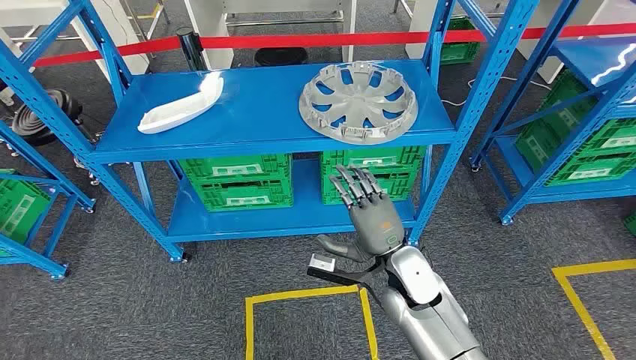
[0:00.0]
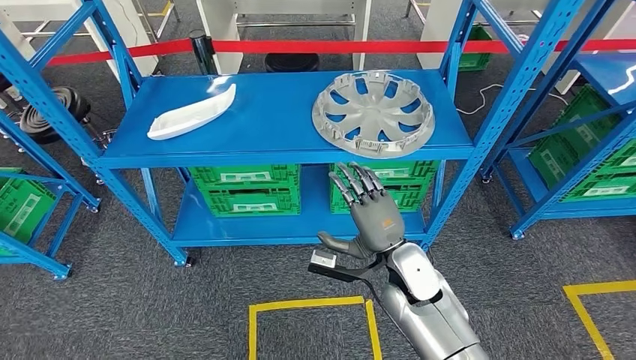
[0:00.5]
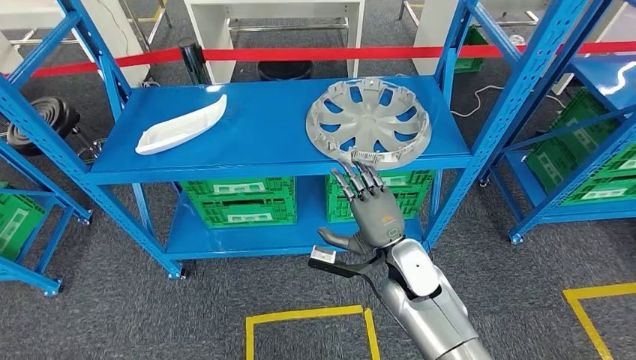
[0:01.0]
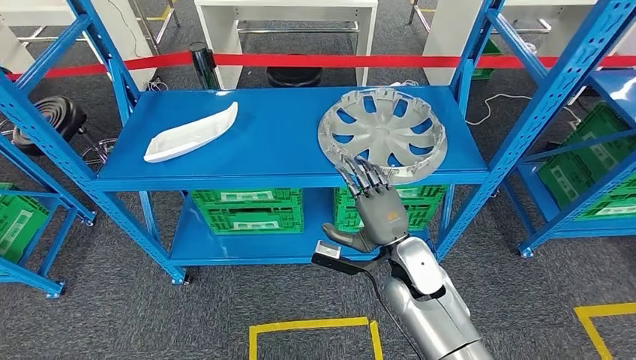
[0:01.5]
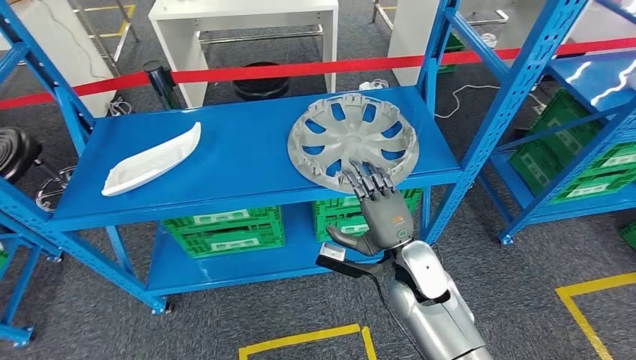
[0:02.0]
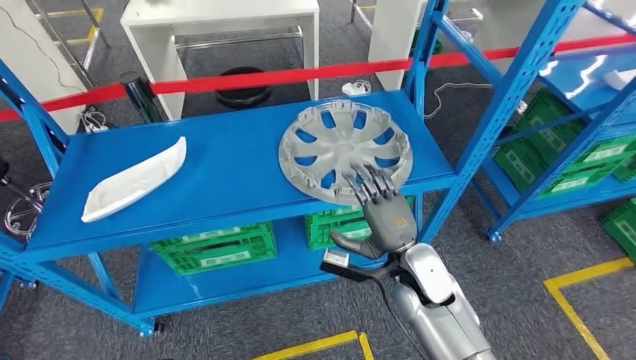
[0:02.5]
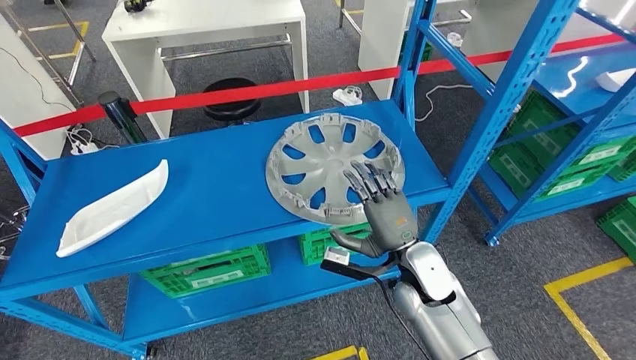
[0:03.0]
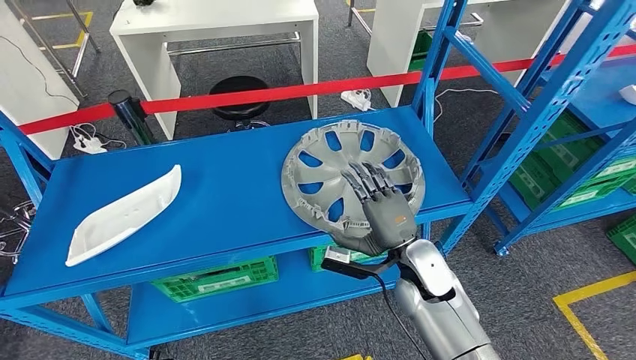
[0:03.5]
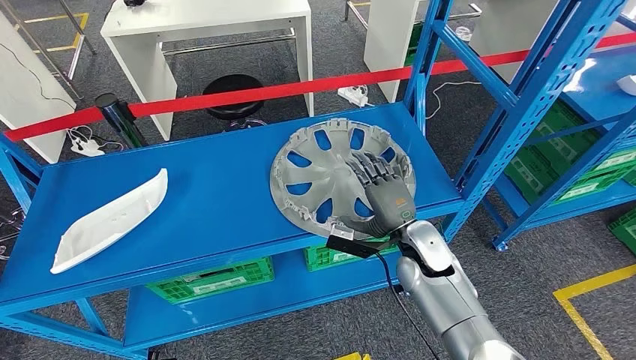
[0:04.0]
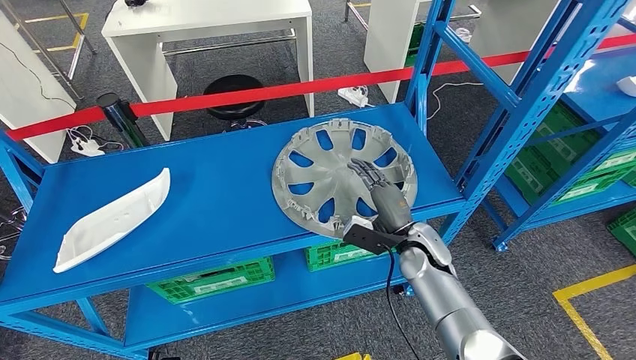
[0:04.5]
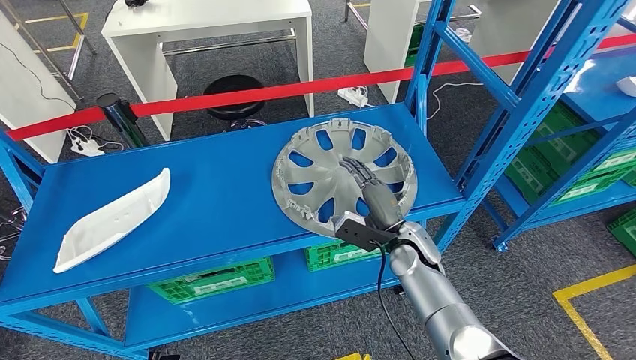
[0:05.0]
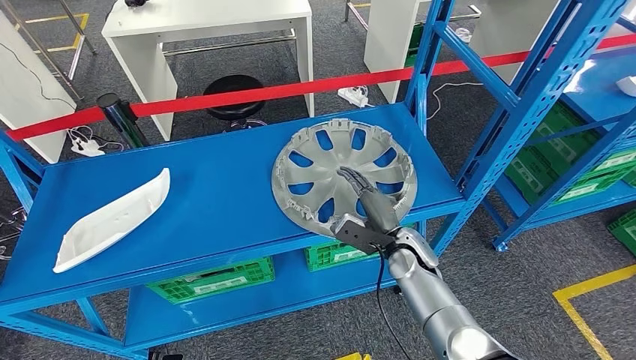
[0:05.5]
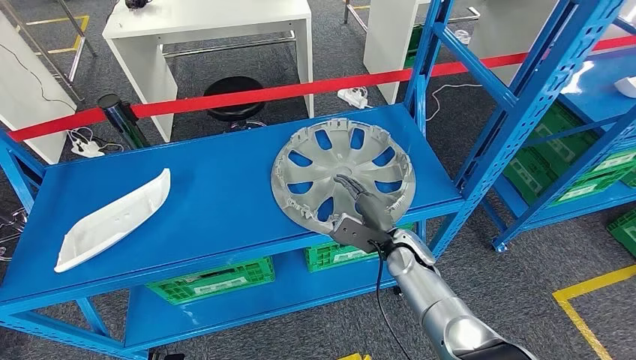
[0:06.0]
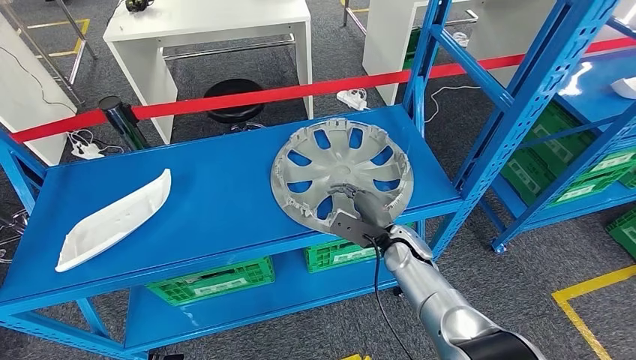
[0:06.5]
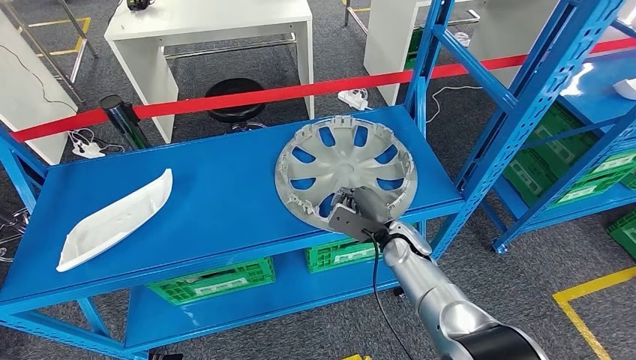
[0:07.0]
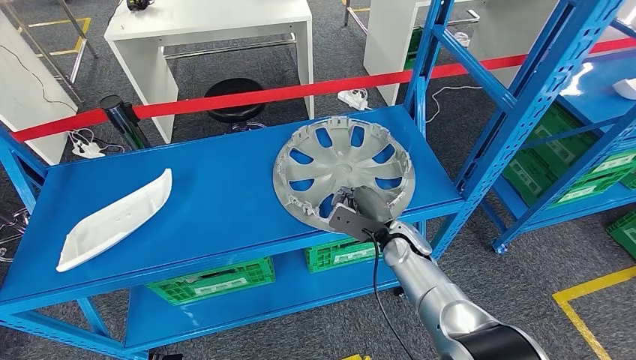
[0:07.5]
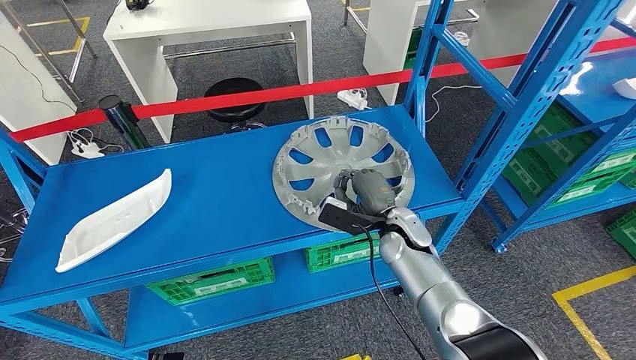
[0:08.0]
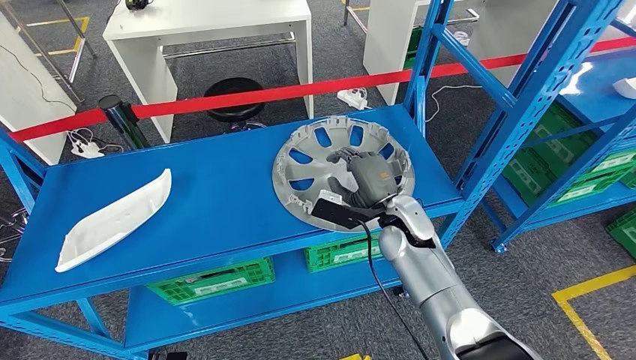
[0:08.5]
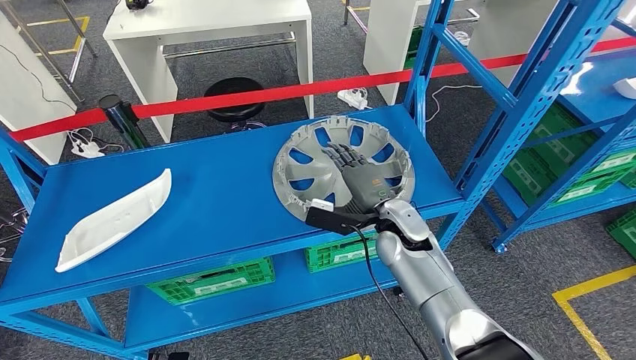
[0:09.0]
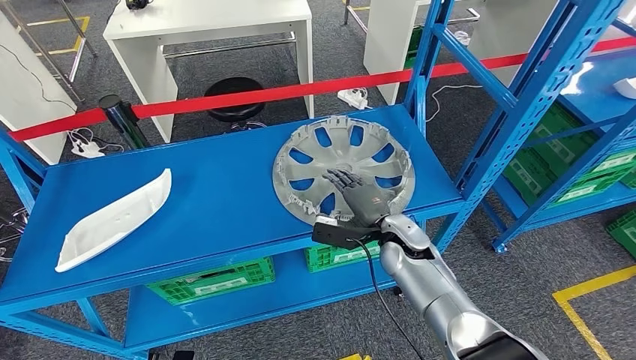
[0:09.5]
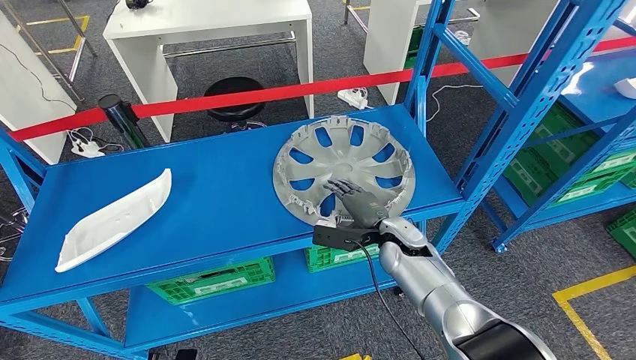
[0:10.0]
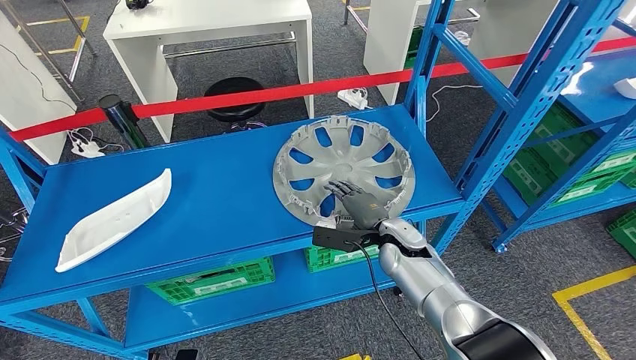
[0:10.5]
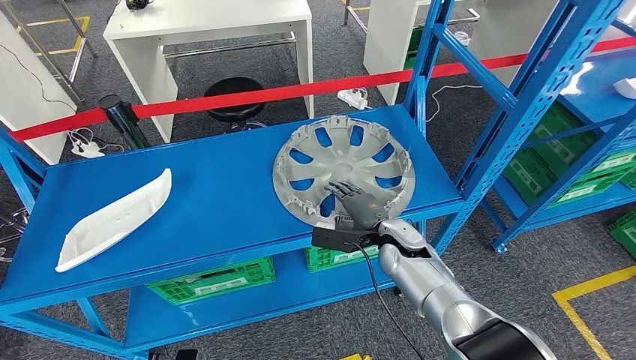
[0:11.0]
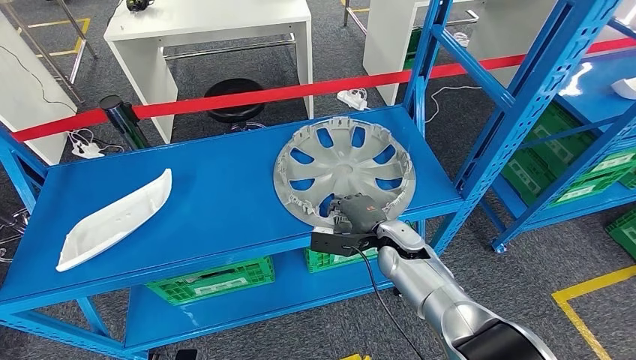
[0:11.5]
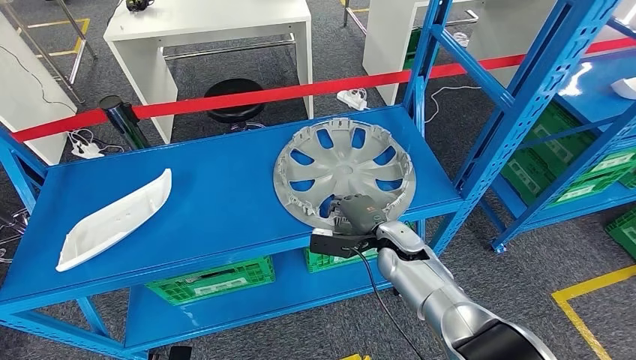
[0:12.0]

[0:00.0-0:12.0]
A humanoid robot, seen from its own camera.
6.0 to 8.0 s: The hands move only a little.
8.0 to 10.0 s: There are only small adjustments of the hands.
10.0 to 12.0 s: The hands stay close to where they were, moving slightly.

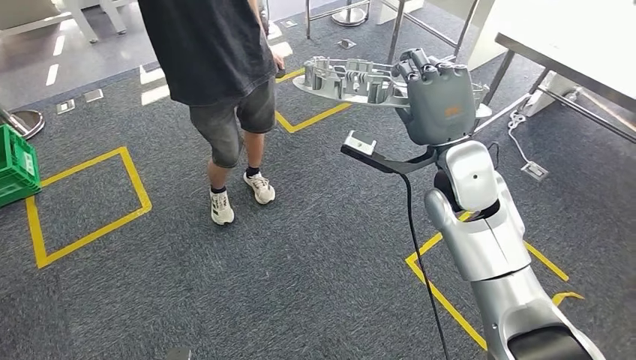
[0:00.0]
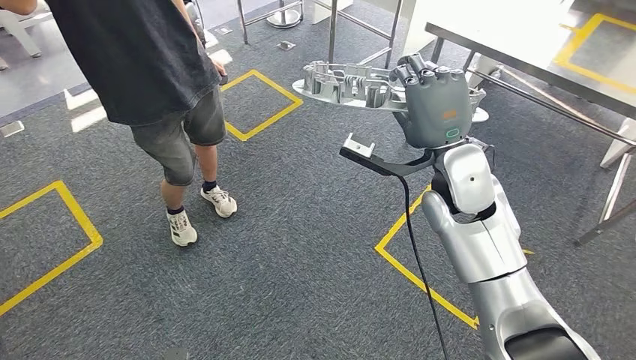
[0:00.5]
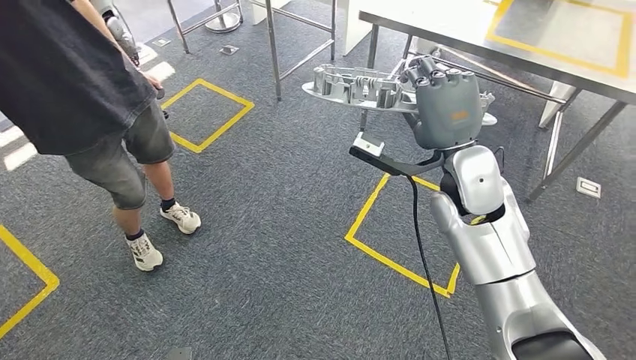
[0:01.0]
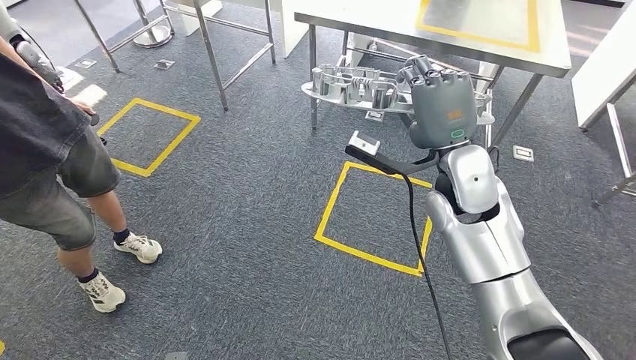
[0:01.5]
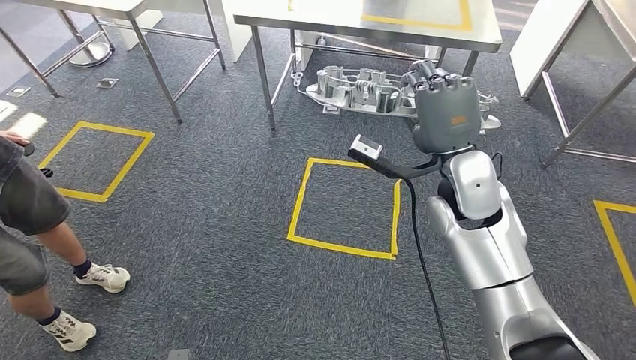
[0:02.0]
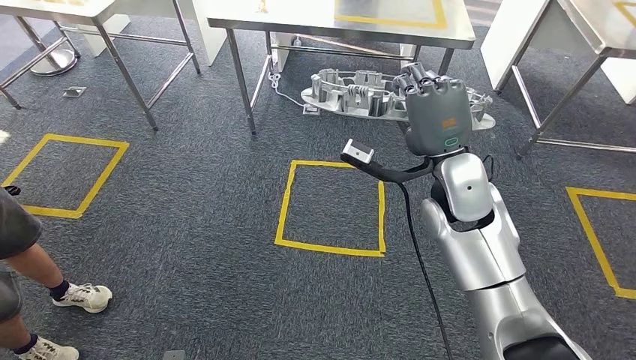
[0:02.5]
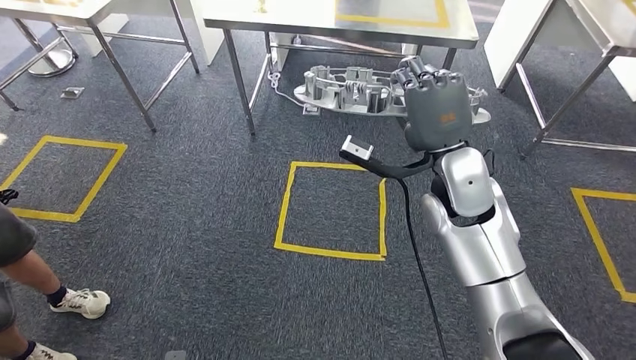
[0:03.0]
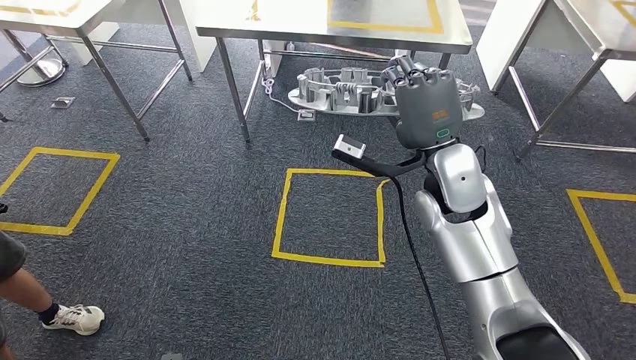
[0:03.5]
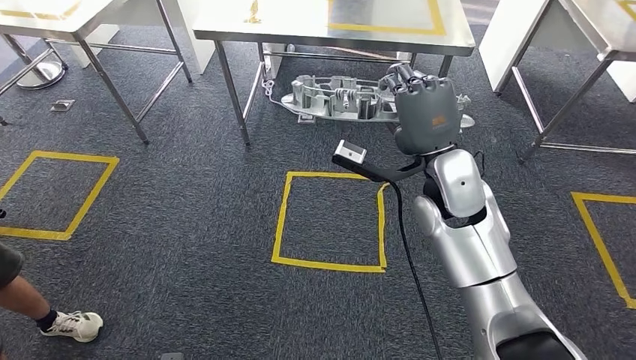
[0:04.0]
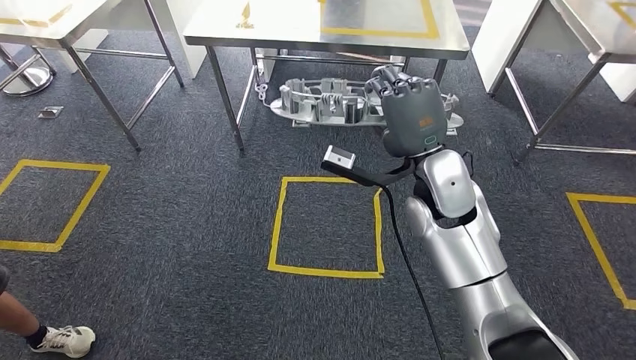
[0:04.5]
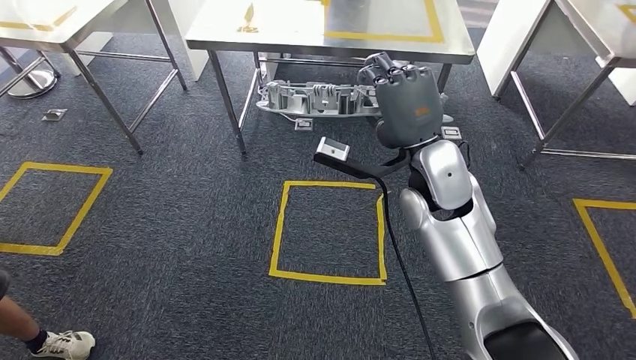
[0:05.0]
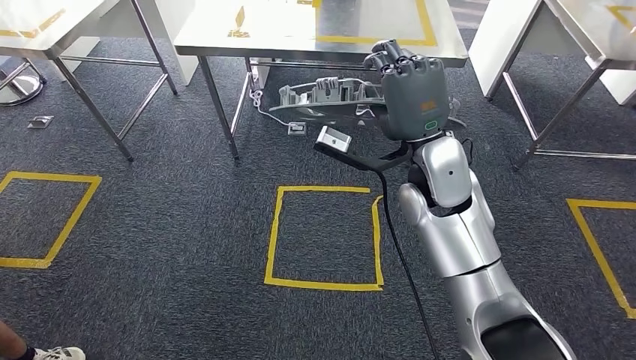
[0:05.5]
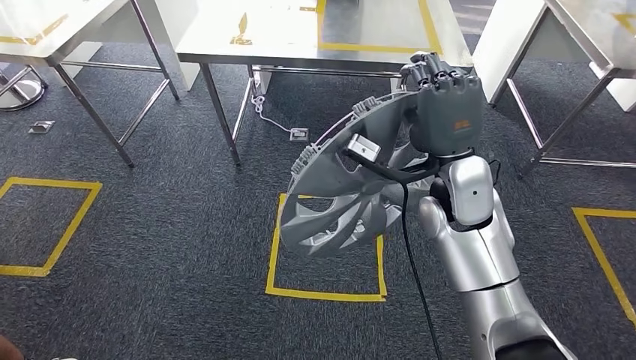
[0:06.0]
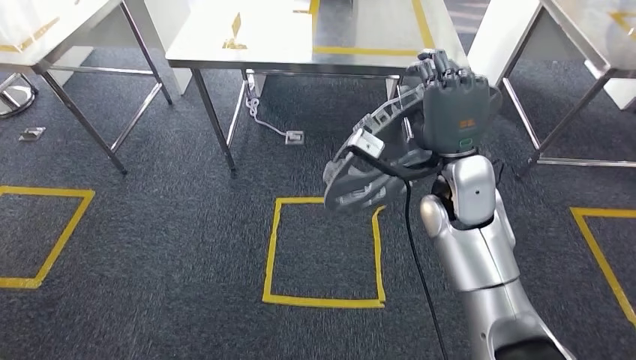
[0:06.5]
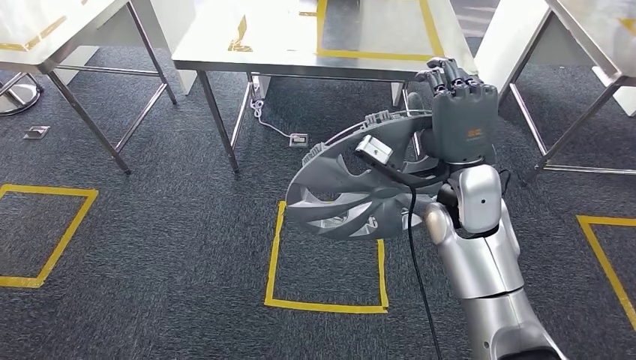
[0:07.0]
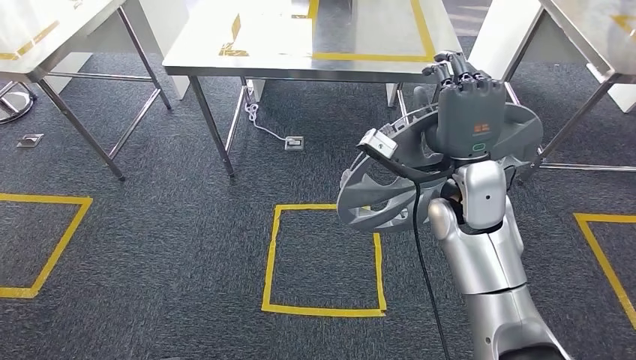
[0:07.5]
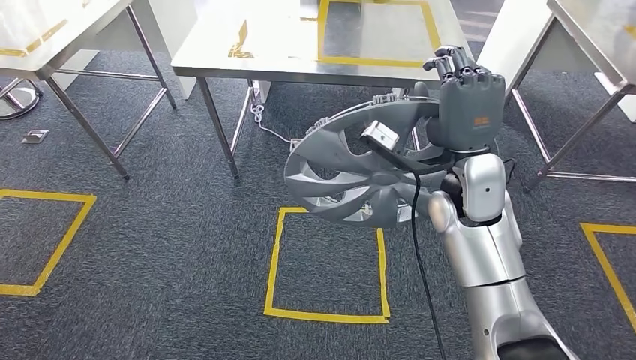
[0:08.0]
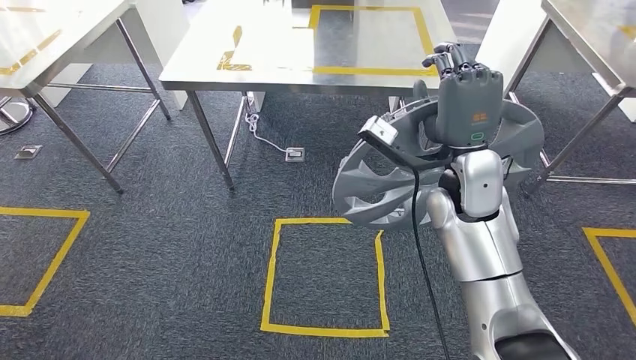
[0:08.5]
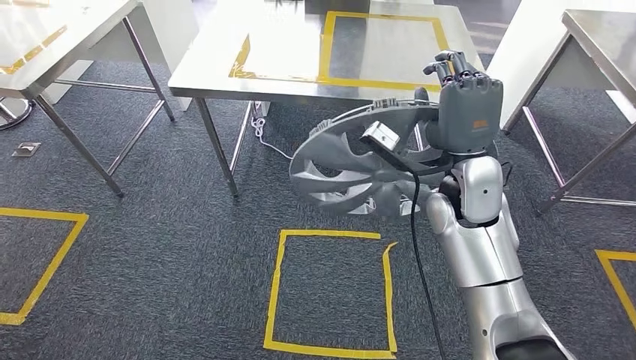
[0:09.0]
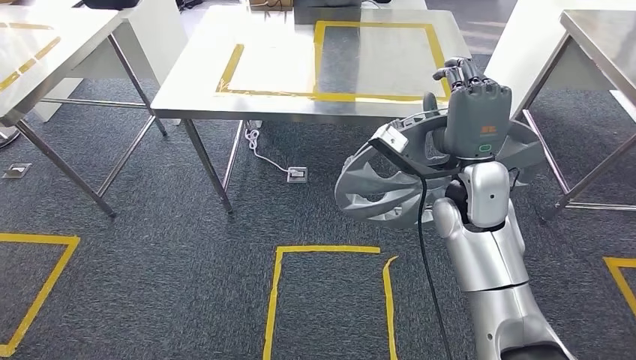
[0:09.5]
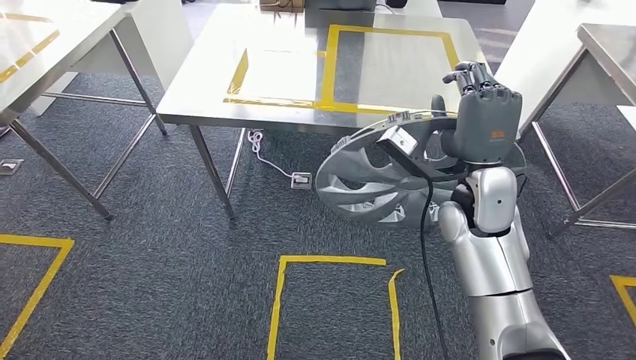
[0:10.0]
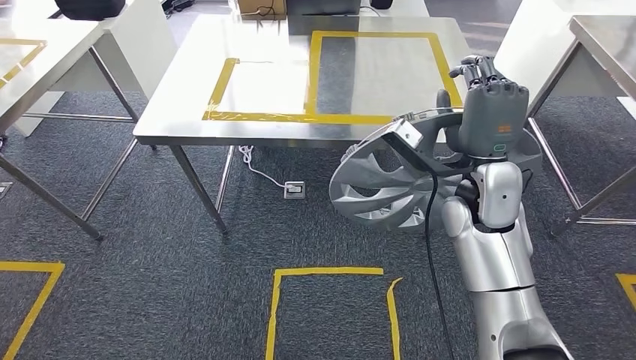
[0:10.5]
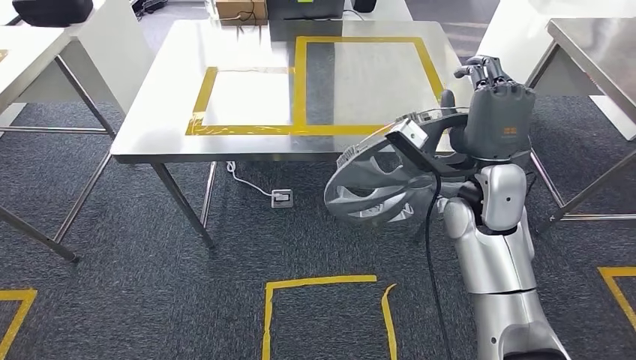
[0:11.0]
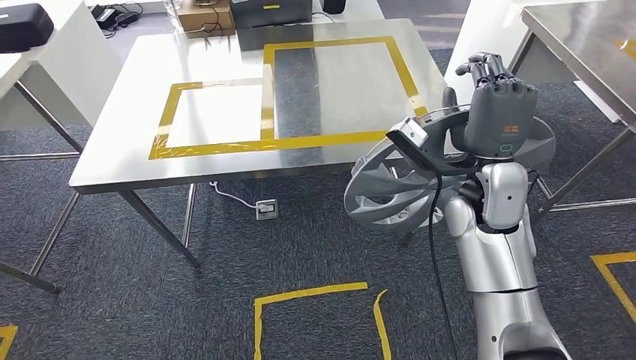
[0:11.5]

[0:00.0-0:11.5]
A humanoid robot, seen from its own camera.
Step, 0.0 to 5.0 s: Move the small component to the workbench.
